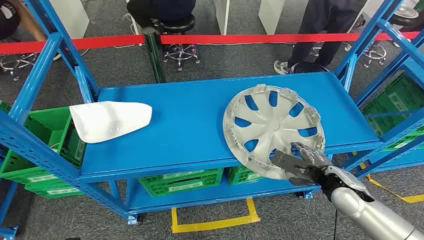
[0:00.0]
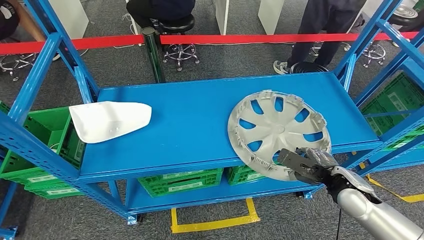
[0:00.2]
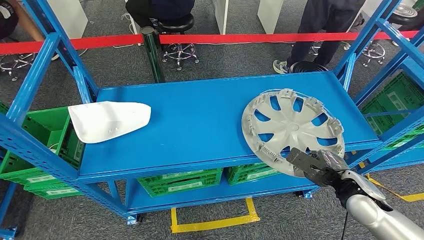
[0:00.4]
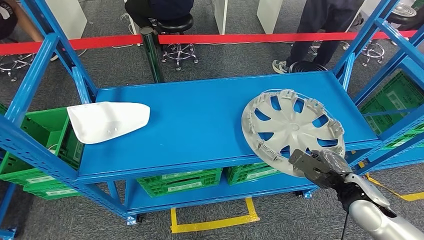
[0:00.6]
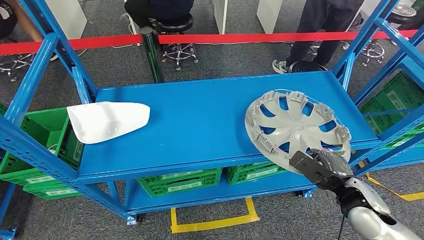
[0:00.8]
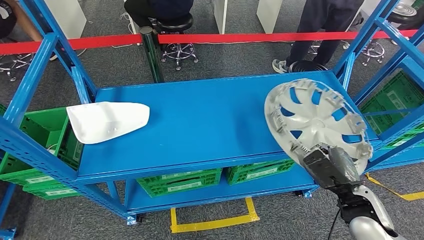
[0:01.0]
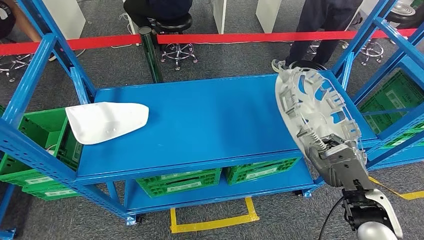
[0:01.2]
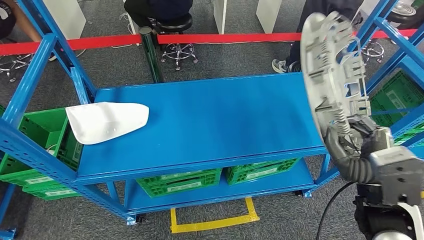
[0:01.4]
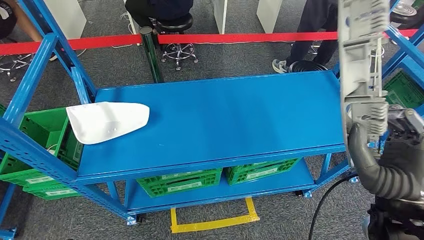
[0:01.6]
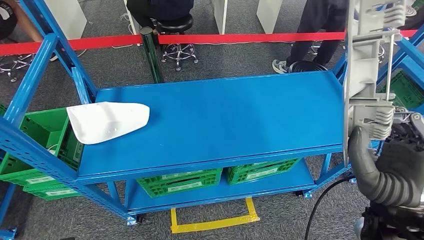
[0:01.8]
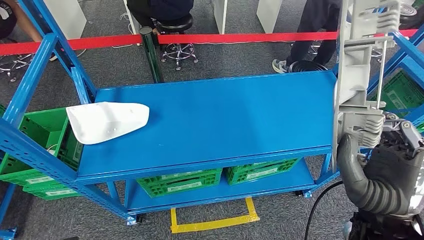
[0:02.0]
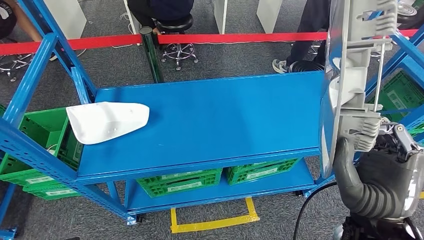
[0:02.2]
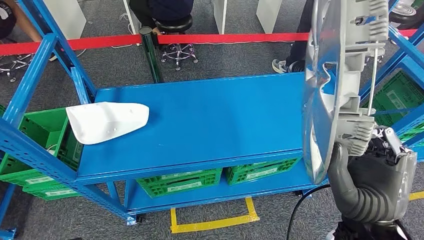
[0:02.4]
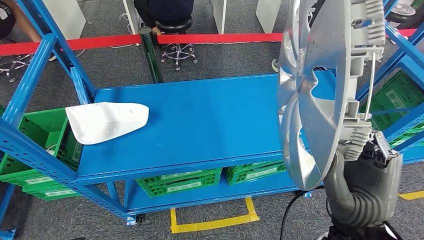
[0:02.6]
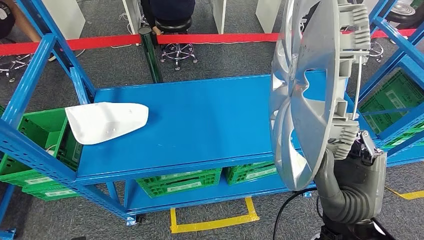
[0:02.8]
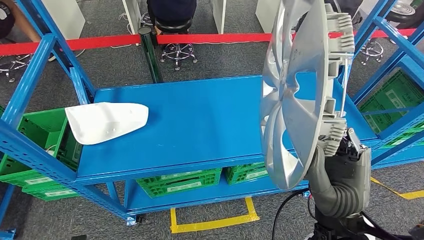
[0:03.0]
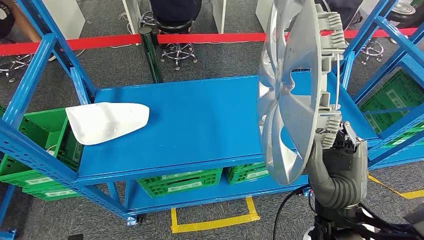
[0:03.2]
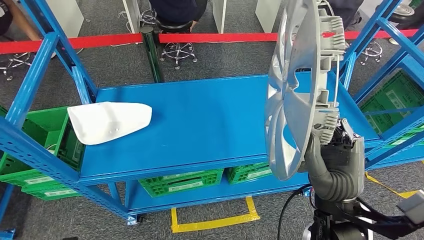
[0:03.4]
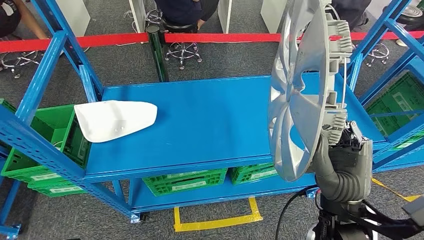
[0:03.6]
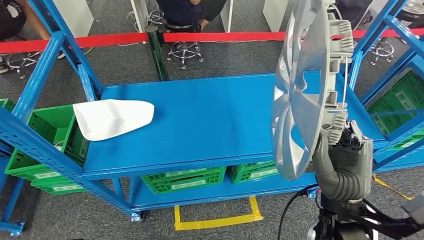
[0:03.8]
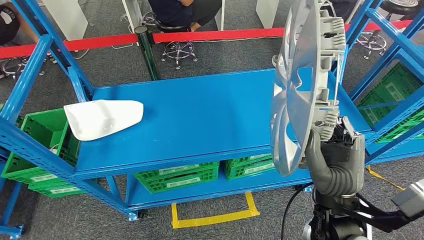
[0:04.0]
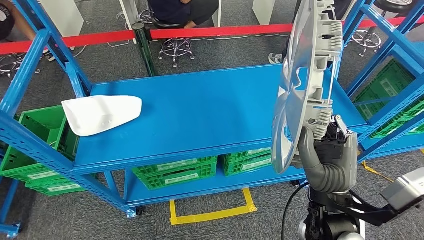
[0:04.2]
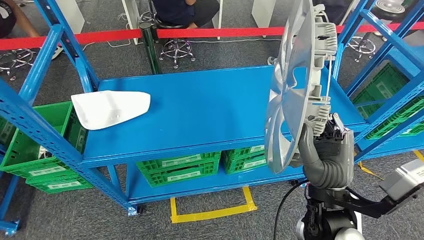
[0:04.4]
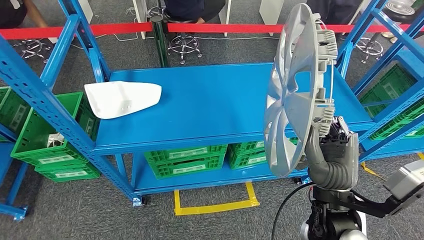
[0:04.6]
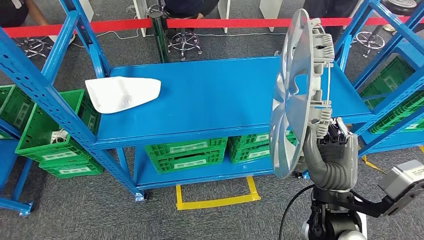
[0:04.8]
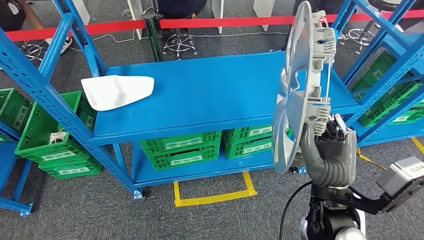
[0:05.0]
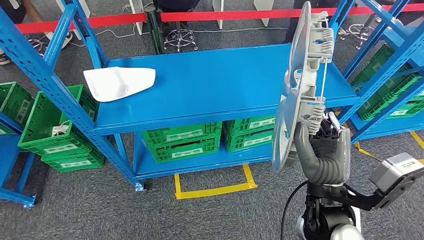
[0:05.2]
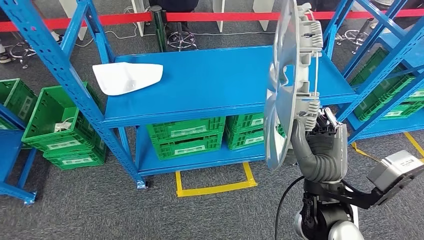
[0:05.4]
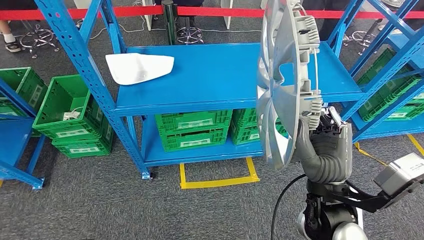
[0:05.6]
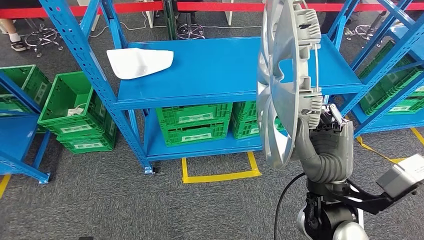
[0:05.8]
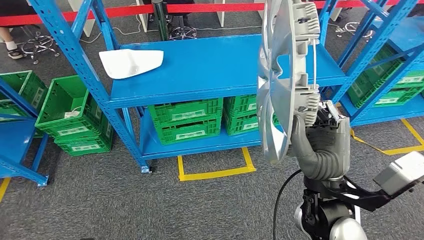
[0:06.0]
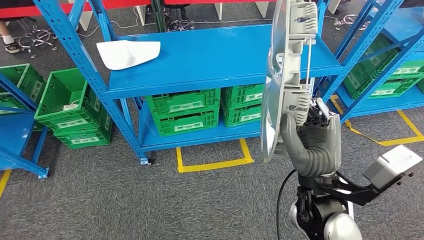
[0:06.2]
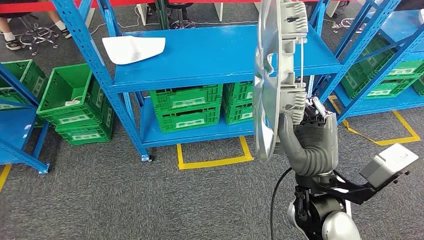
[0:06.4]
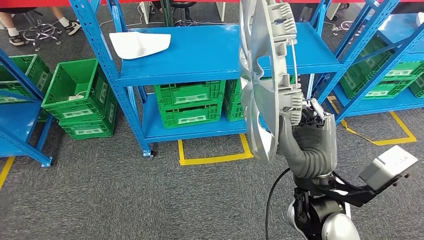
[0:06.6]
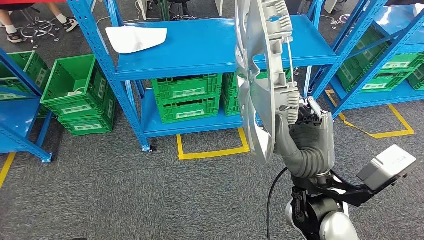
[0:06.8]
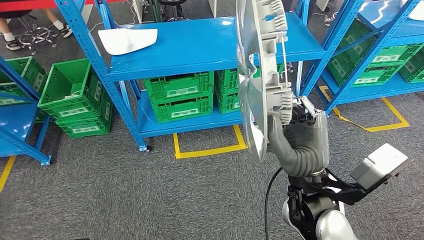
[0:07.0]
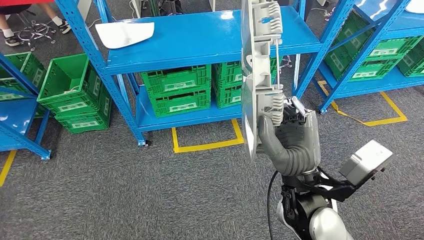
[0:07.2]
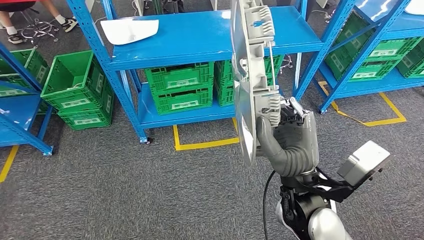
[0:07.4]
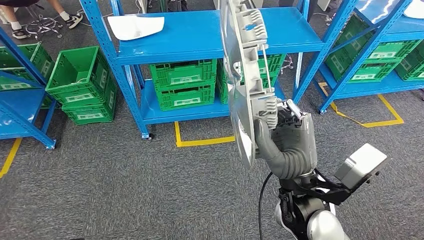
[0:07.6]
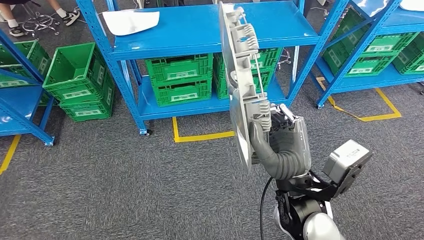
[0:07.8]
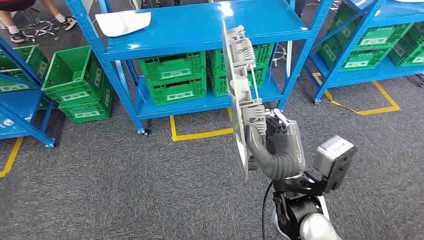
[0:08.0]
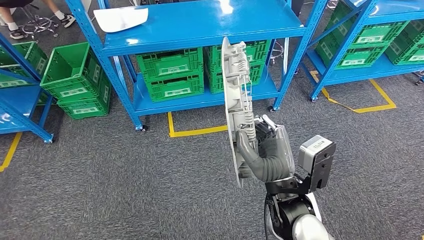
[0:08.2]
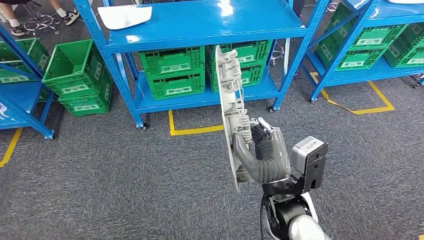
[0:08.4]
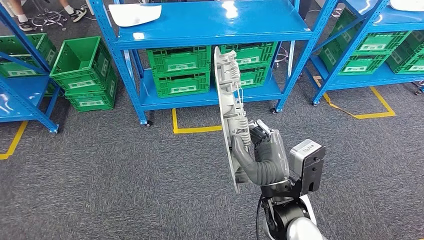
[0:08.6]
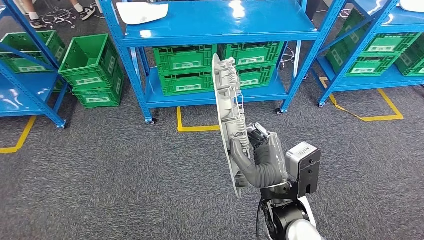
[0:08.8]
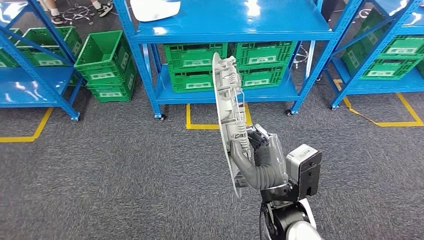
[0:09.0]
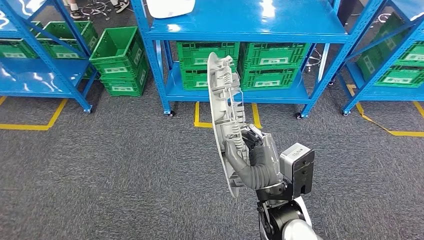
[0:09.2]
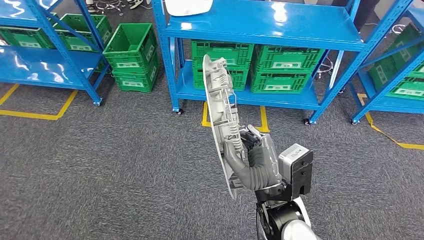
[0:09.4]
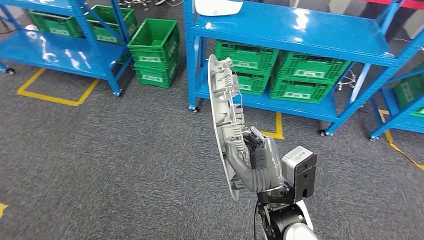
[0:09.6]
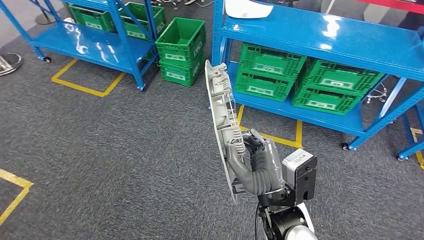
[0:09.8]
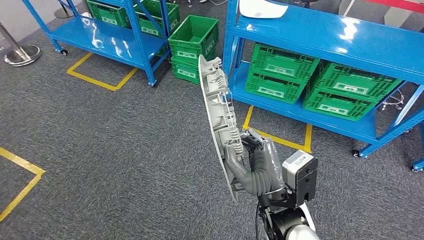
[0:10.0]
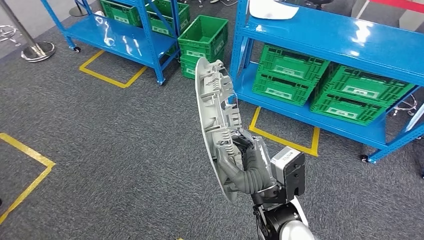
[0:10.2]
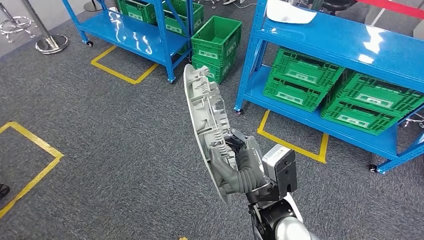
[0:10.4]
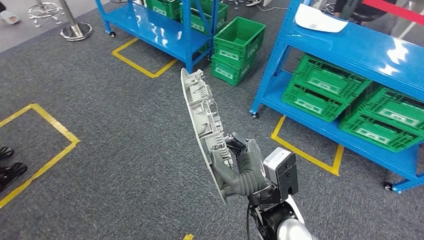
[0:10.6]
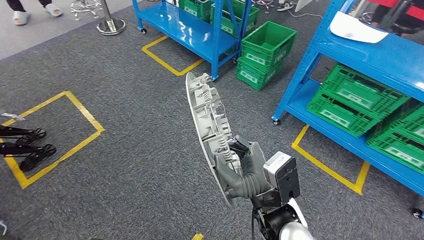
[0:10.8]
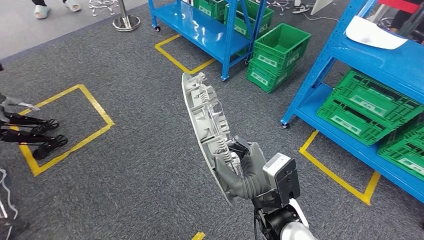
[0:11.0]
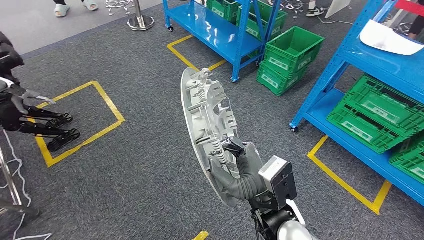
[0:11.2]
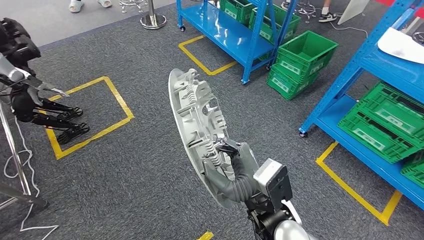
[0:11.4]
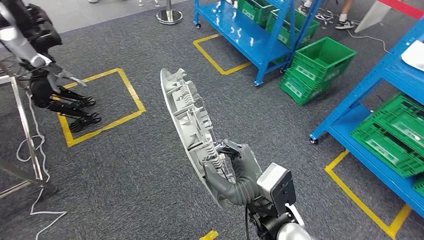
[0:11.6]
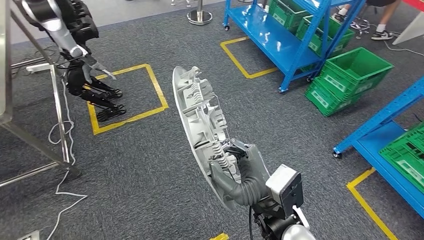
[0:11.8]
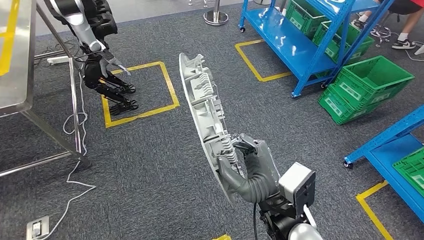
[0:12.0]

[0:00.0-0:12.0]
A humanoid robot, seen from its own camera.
Step, 0:00.0 to 0:03.2: Pick up the small component from the shelf.

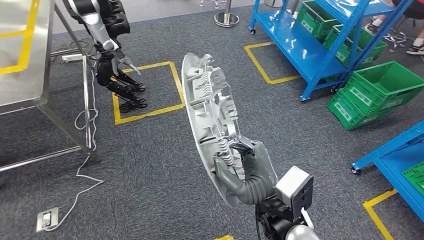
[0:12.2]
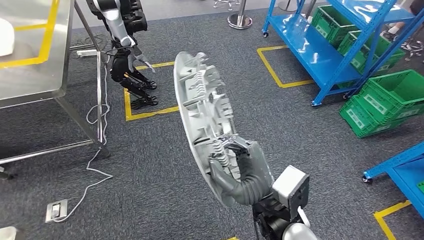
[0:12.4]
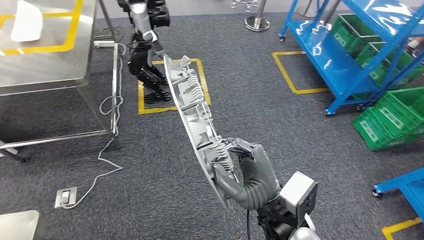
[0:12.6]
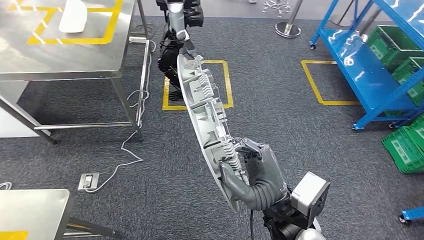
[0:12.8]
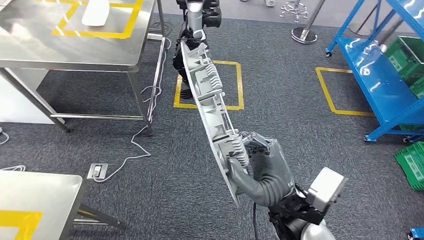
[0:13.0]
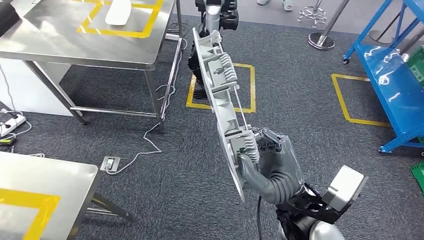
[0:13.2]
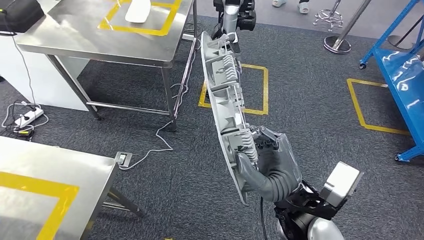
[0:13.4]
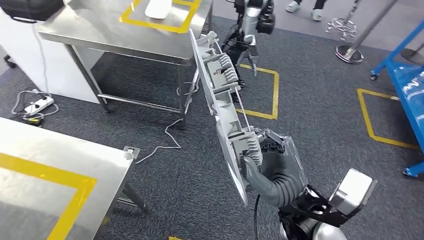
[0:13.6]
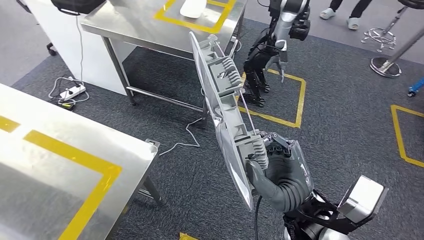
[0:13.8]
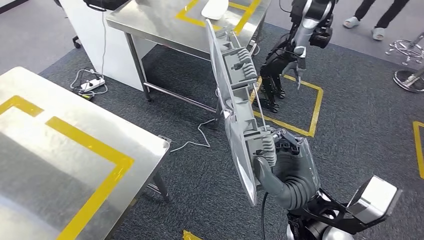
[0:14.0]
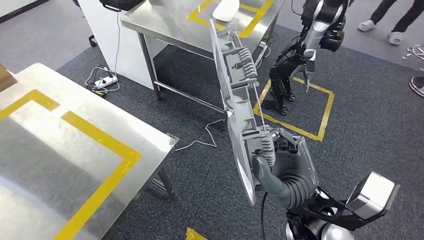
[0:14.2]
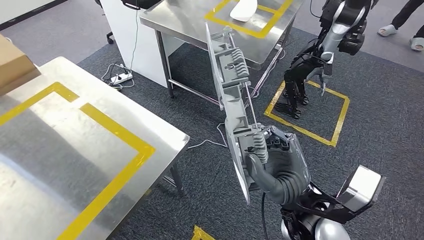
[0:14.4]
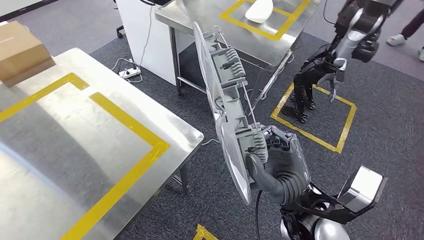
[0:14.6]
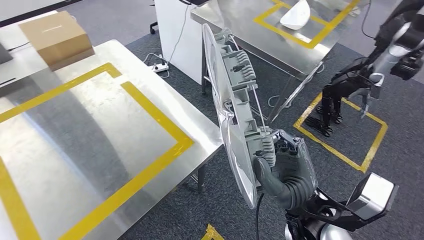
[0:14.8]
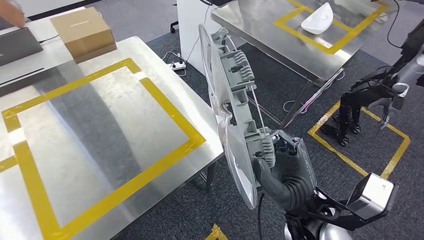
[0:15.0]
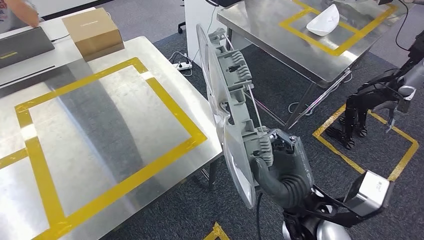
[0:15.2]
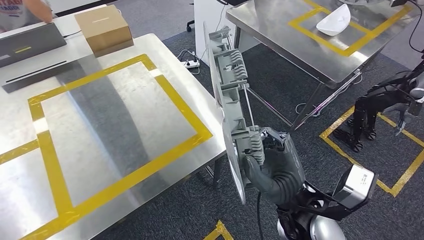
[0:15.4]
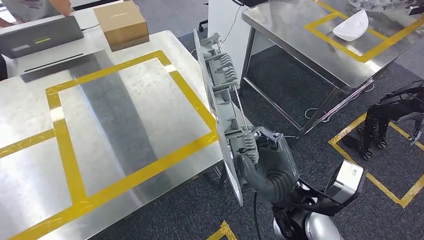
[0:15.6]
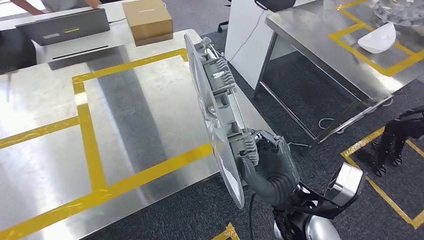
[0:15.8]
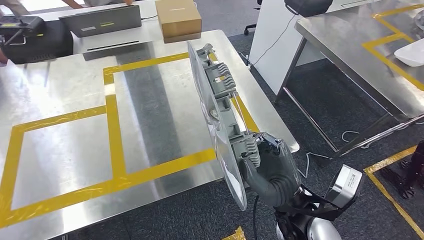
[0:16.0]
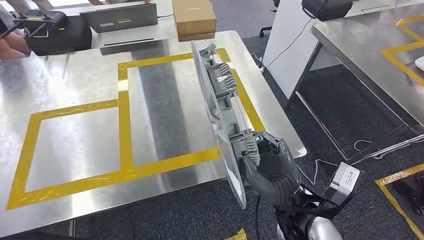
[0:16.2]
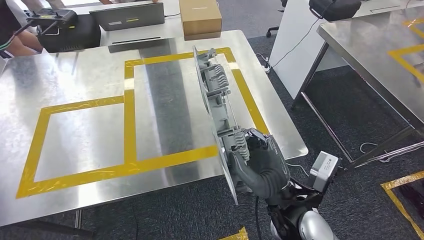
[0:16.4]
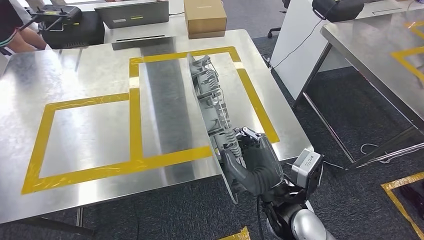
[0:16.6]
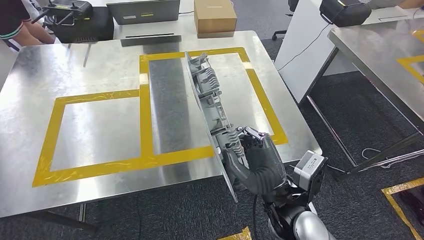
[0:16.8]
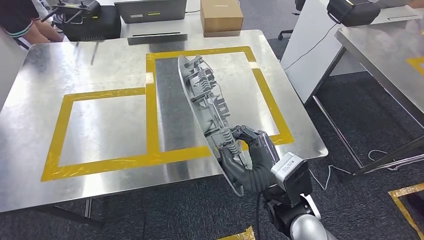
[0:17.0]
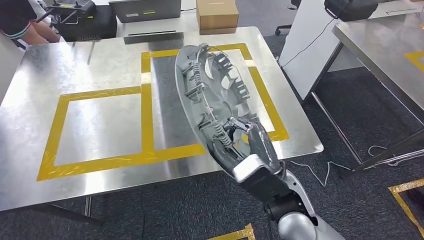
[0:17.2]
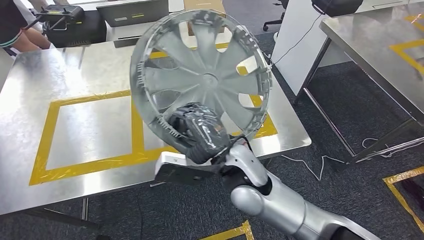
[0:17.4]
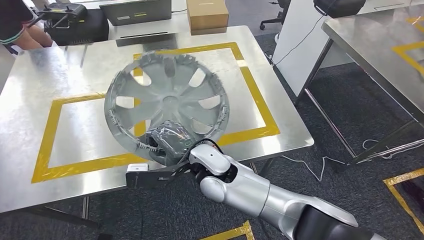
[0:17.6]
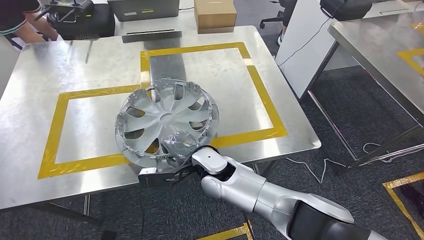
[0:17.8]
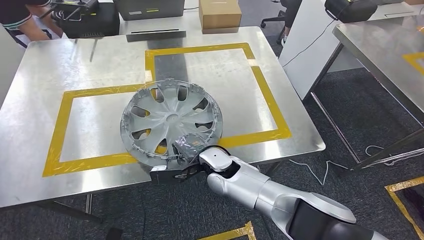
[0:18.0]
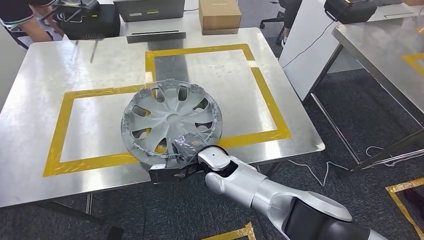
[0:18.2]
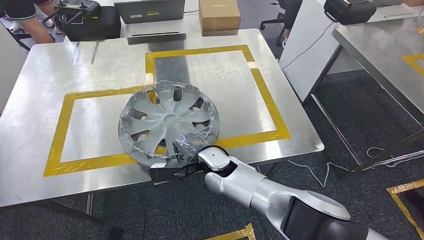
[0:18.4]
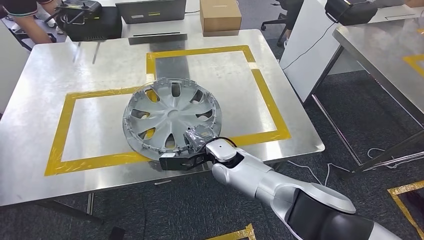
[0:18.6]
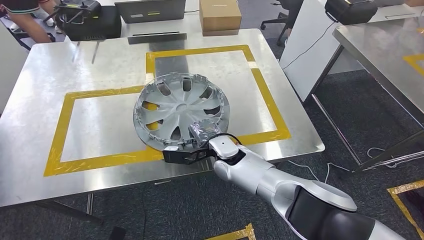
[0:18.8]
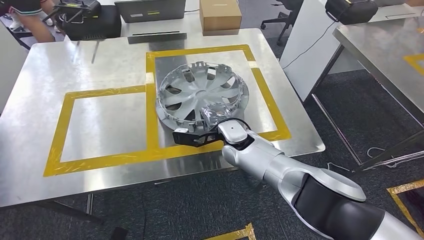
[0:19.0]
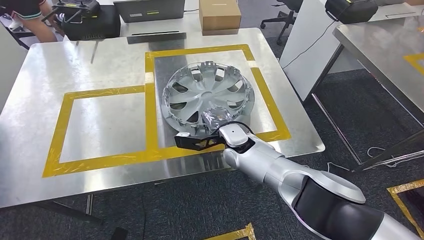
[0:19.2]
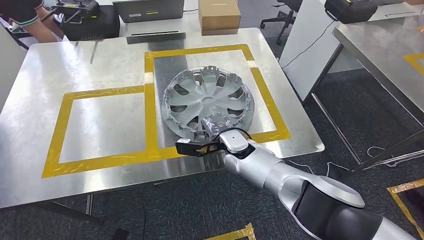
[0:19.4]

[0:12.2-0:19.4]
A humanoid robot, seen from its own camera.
Step, 0:12.2 to 0:16.8: Move the small component to the workbench.
